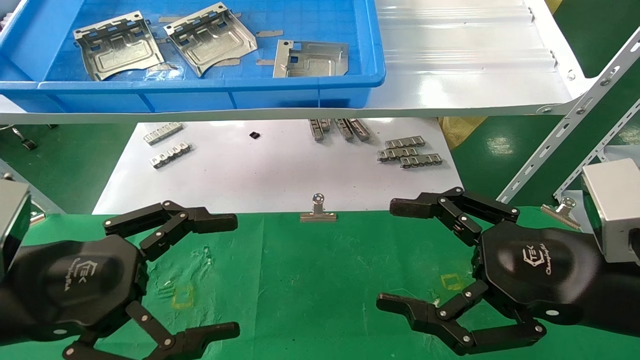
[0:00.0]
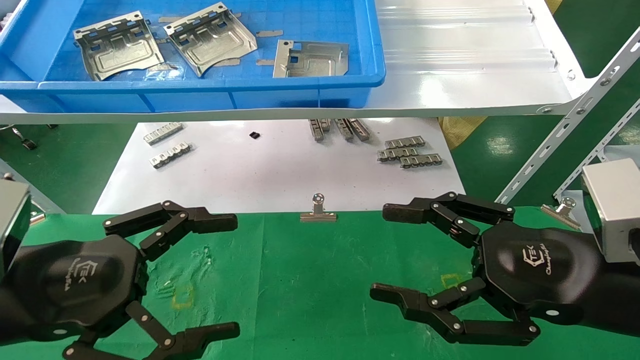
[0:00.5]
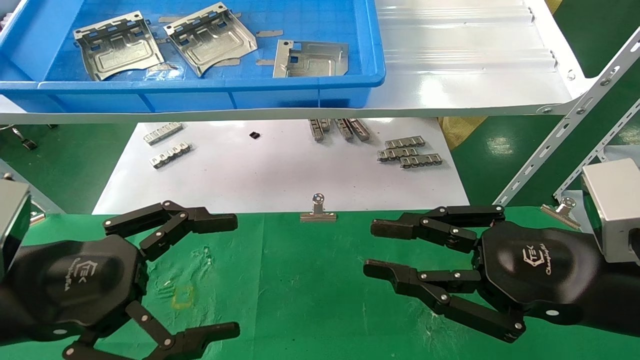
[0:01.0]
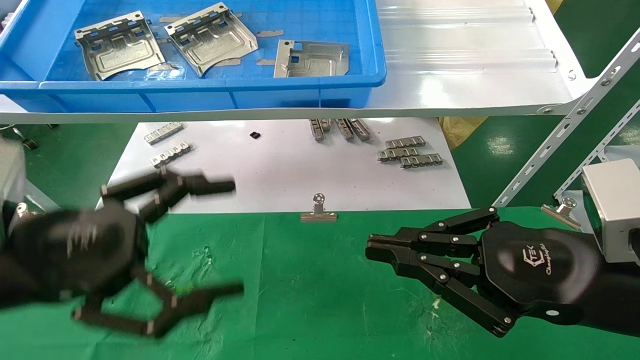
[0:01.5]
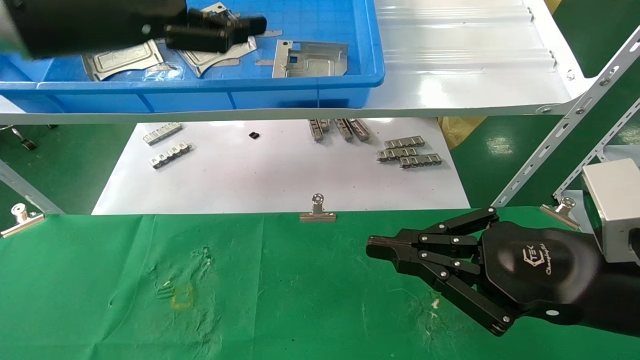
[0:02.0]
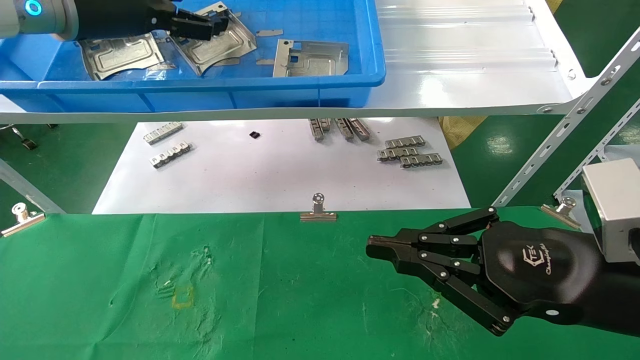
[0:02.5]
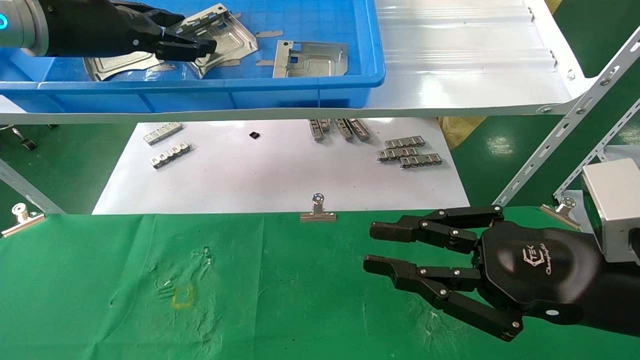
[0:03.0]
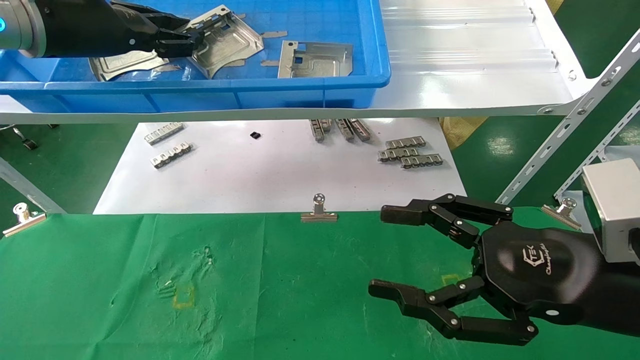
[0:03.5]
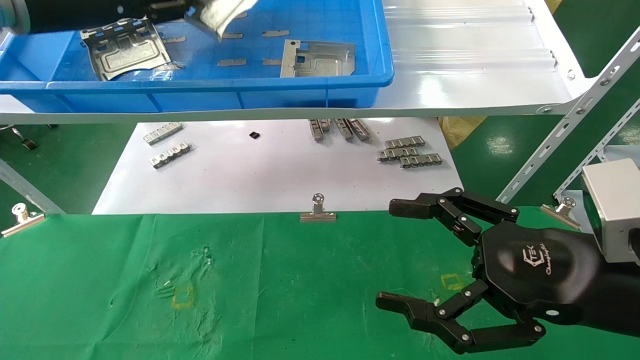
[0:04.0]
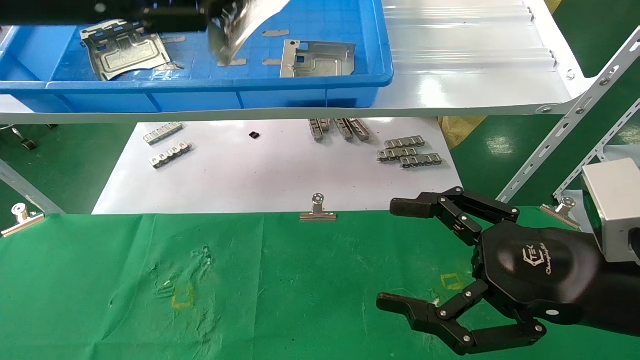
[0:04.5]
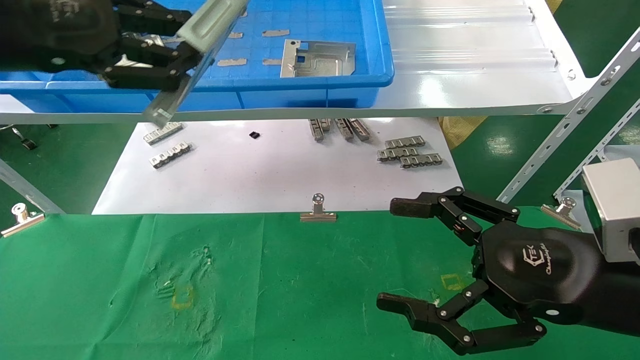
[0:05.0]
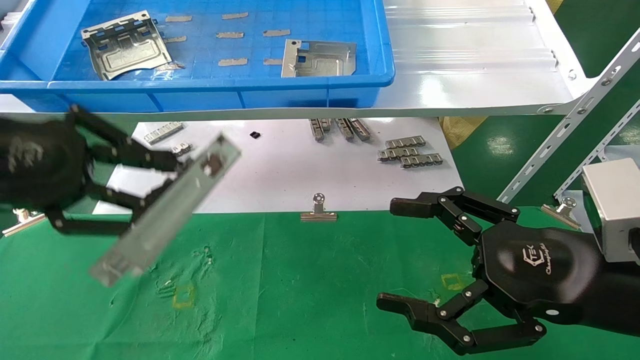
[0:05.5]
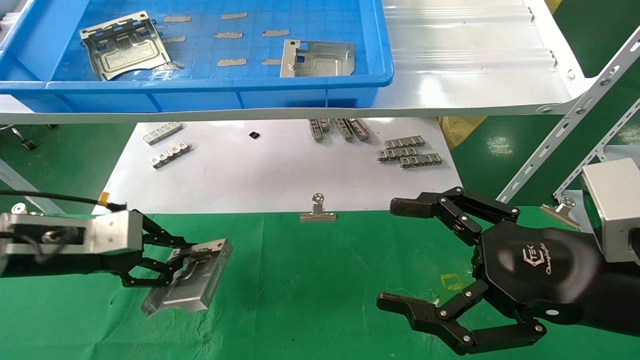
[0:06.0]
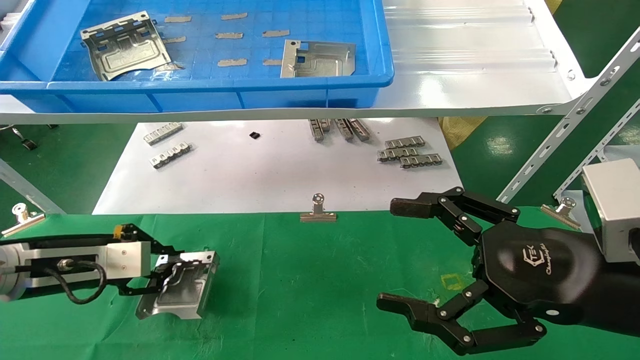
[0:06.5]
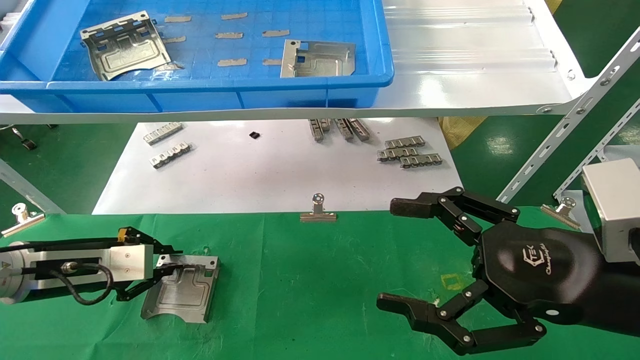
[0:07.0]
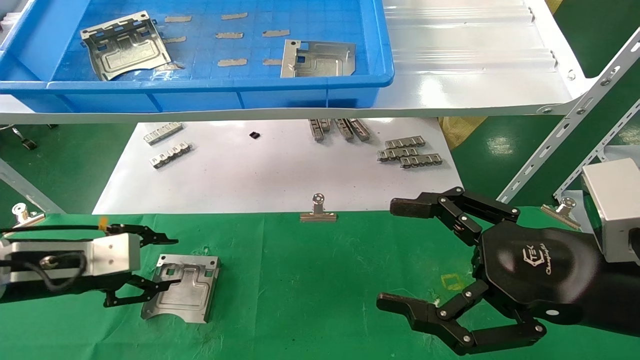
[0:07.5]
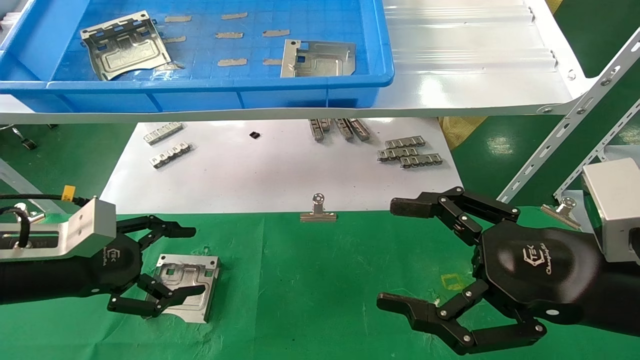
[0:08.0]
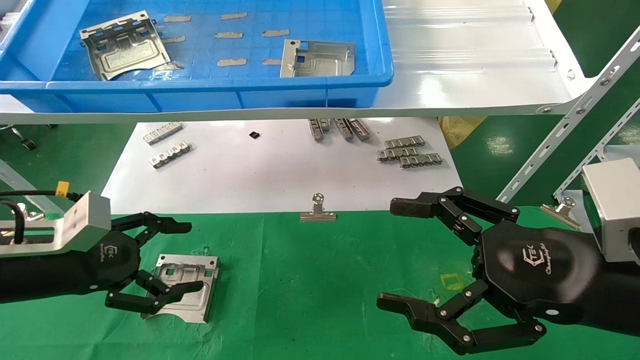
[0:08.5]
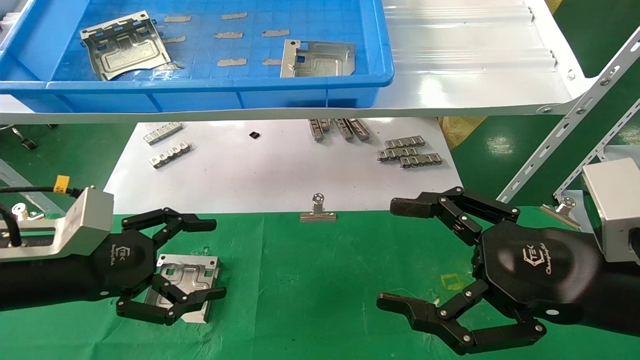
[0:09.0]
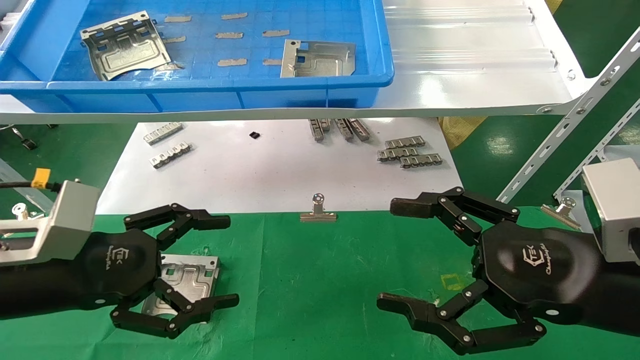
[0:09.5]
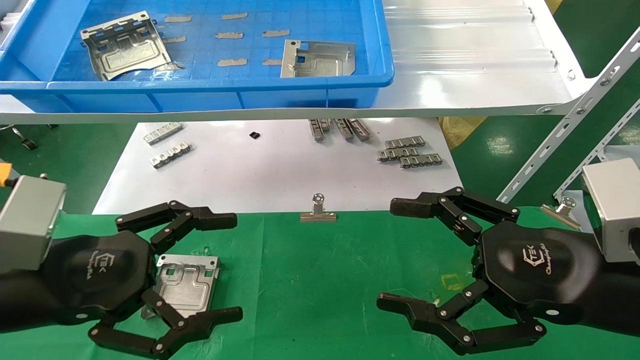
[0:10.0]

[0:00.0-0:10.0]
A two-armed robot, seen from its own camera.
Task of the whole recording: use the mechanical arm to pick up the parts and place them on the table.
Step, 0:02.0 to 0:03.5: Pick up the hard drive bracket from the feeding area.
Step, 0:04.0 to 0:07.0: Place the hard drive bracket into the box.
0:00.0 to 0:02.0: The right gripper closes, while the left gripper travels upward and forward by about 25 cm.
0:02.0 to 0:04.0: The left gripper shifts by some 5 cm, and closes its fingers. The right gripper opens.
0:04.0 to 0:06.0: The left gripper heads downward, covering approximately 25 cm.
0:06.0 to 0:08.0: The left gripper opens its fingers.
0:08.0 to 0:10.0: The left gripper travels backward and to the right by approximately 10 cm.

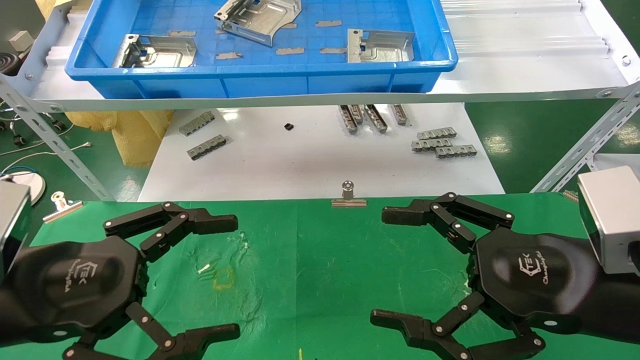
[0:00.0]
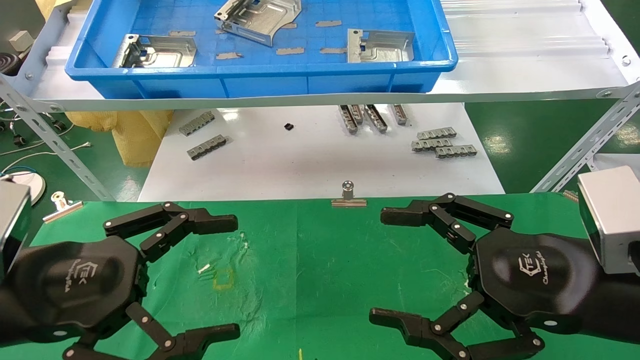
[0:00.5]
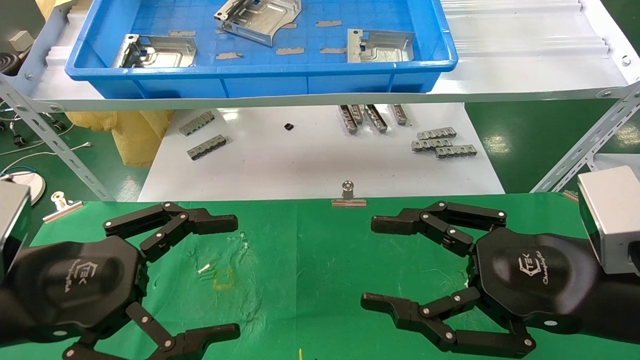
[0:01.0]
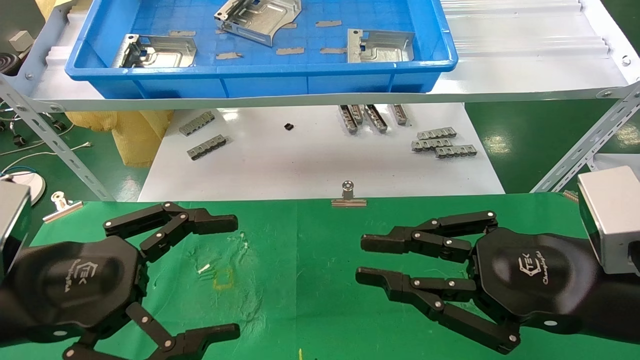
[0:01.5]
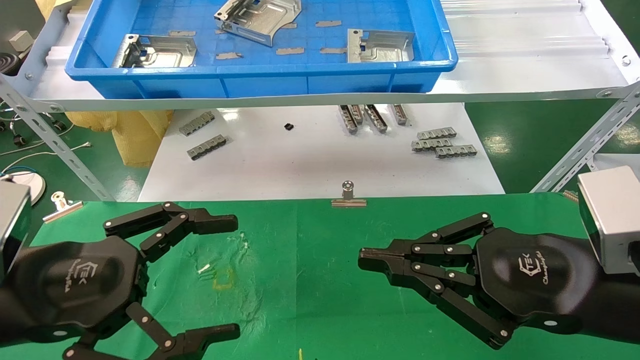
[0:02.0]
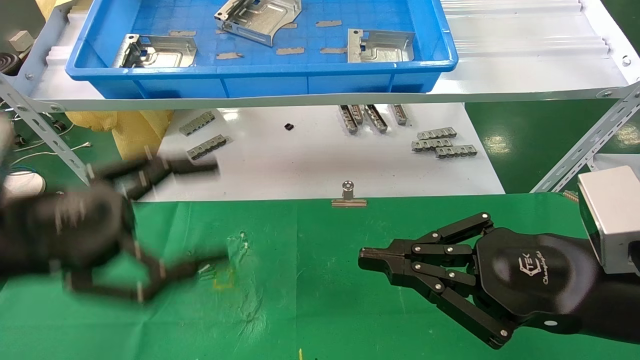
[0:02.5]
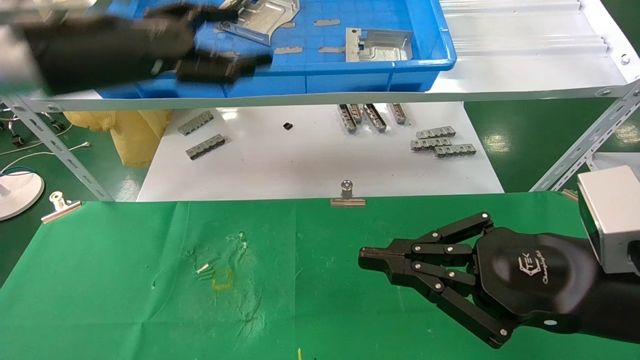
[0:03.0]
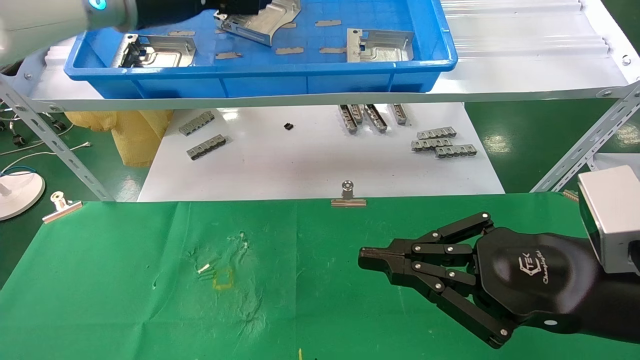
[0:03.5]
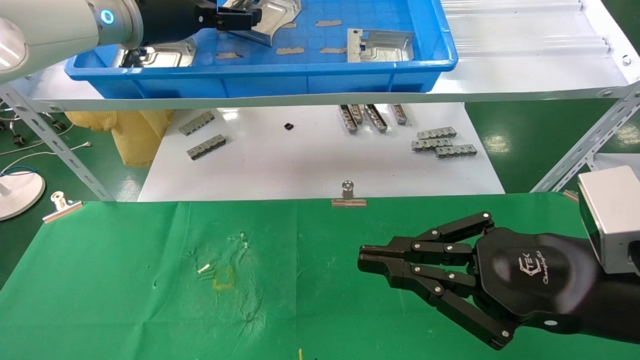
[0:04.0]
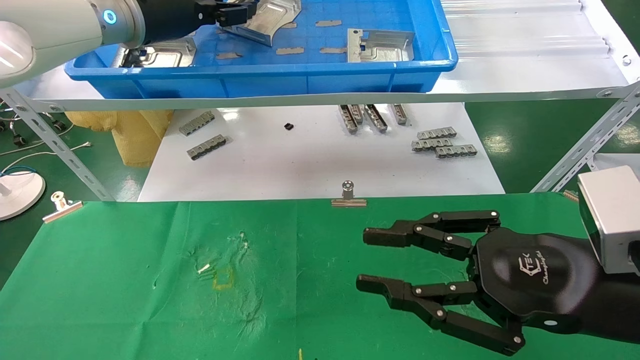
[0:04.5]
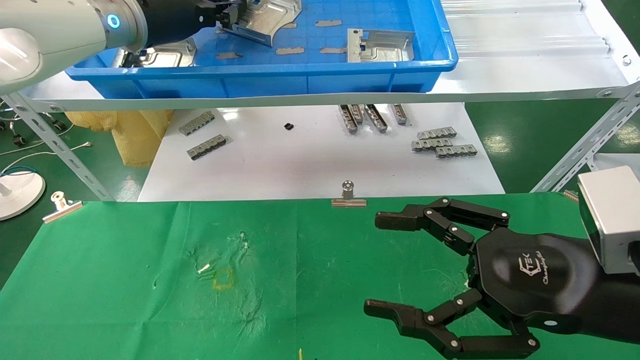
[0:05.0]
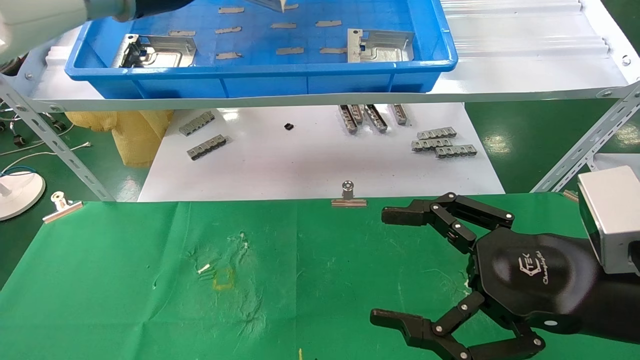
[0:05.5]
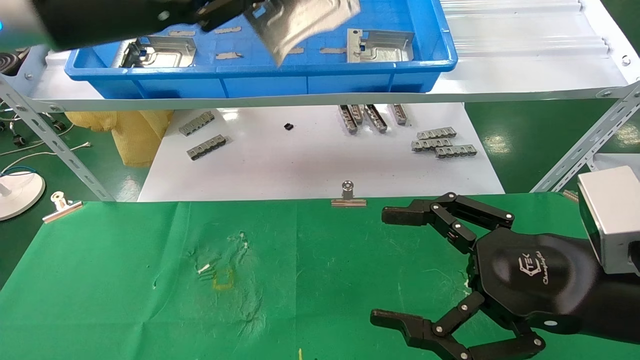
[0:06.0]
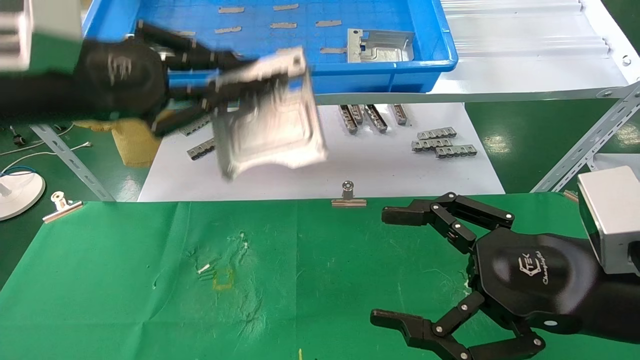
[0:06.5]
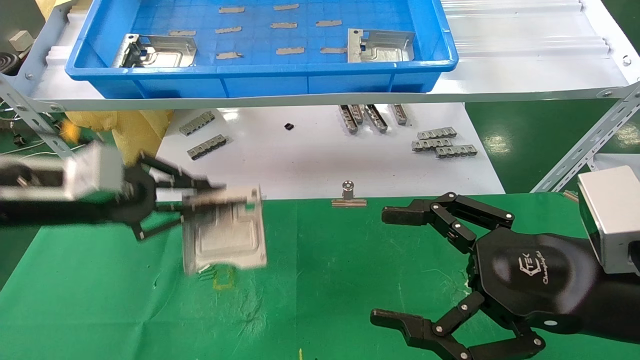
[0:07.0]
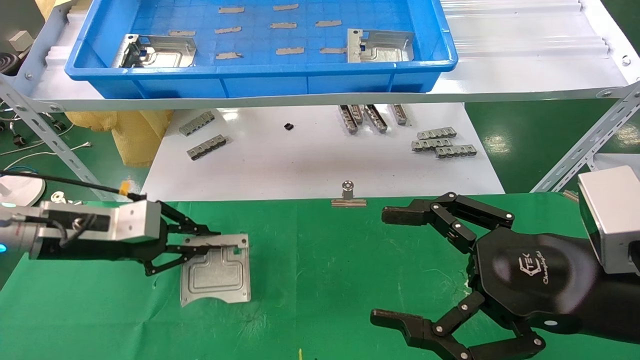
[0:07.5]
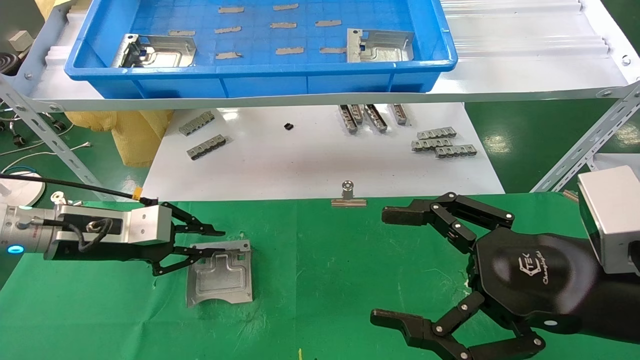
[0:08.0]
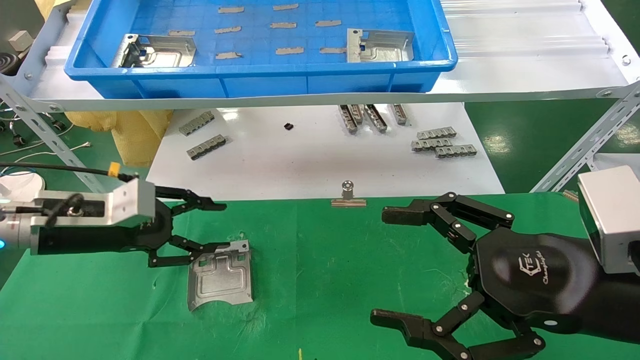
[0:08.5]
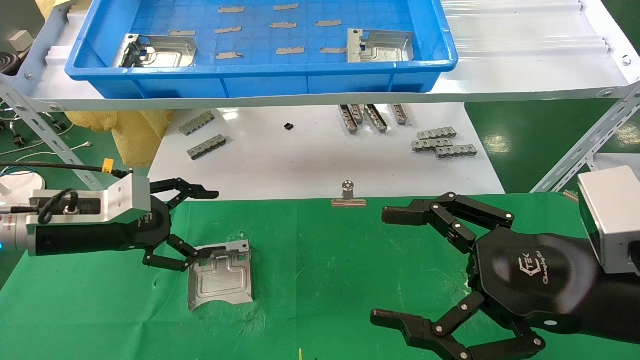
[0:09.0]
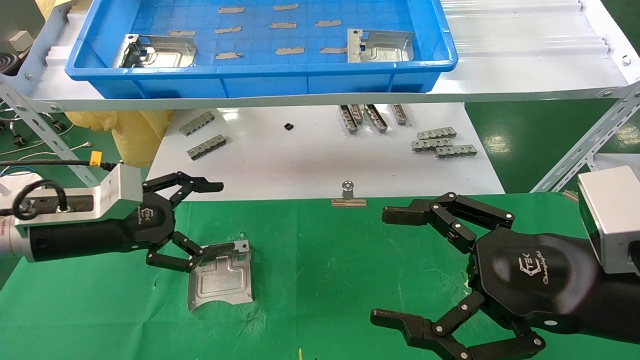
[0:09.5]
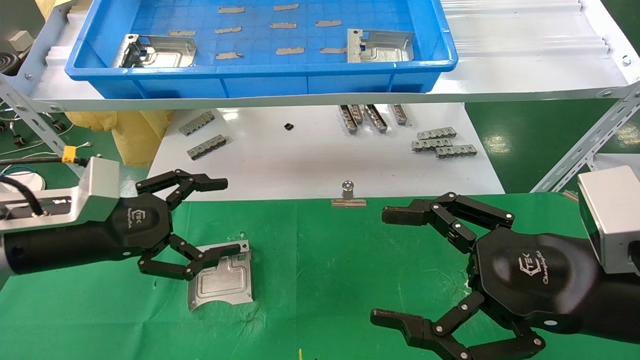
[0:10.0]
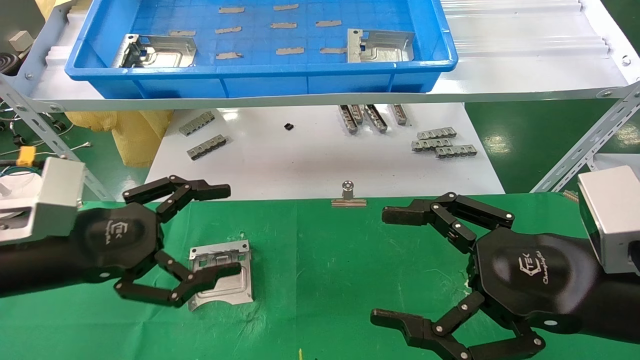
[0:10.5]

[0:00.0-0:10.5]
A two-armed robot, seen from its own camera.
Task of the whole recording: use the mechanical arm to pick up the parts and place them on the table.
Step, 0:03.0 to 0:05.0: Pick up the hard drive bracket from the feeding area.
Step, 0:05.5 to 0:08.0: Place the hard drive bracket into the box.
0:00.0 to 0:02.0: The right gripper closes.
0:02.0 to 0:04.0: The left gripper heads forward and upward, covering approximately 35 cm.
0:04.0 to 0:06.5: The right gripper opens its fingers, while the left gripper travels backward, downward and to the left by roughly 20 cm, and closes.
0:06.5 to 0:08.5: The left gripper moves downward, about 15 cm.
0:08.5 to 0:10.5: The left gripper goes approximately 10 cm backward, and opens.
